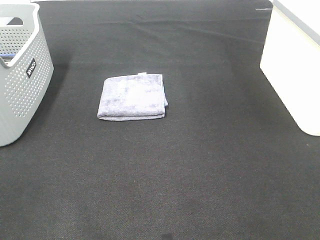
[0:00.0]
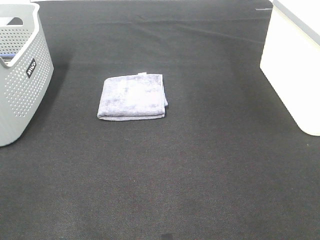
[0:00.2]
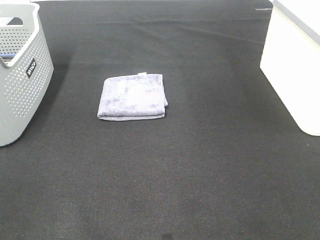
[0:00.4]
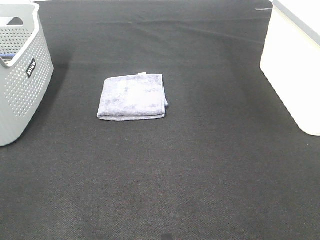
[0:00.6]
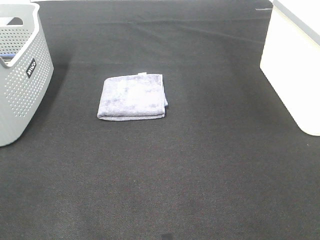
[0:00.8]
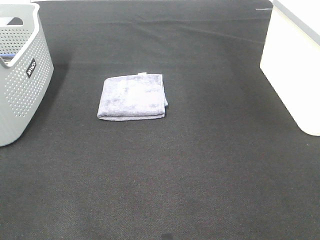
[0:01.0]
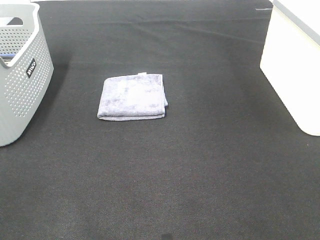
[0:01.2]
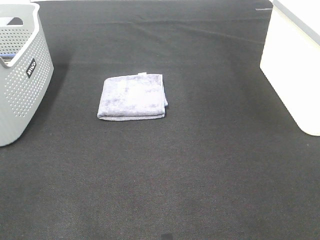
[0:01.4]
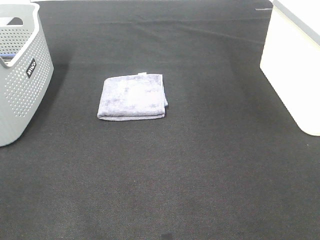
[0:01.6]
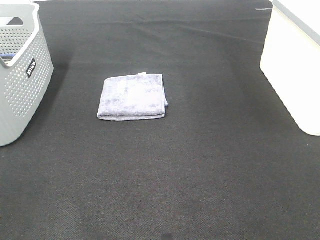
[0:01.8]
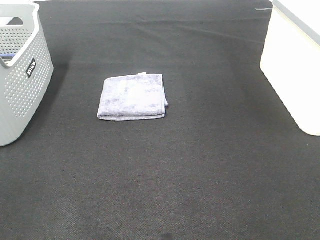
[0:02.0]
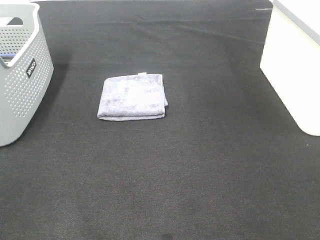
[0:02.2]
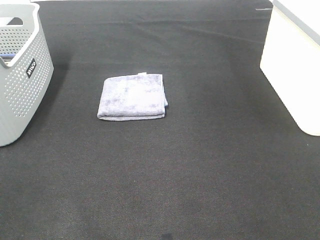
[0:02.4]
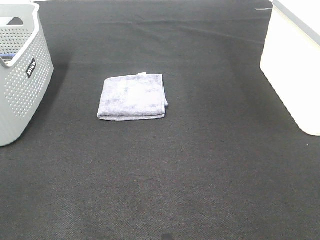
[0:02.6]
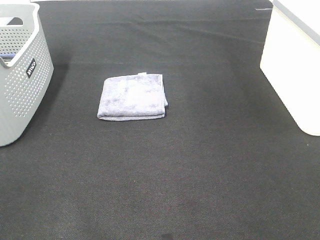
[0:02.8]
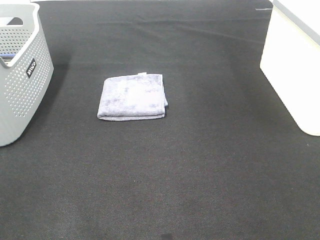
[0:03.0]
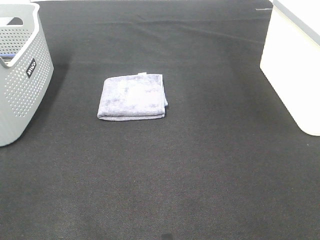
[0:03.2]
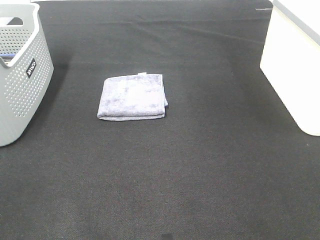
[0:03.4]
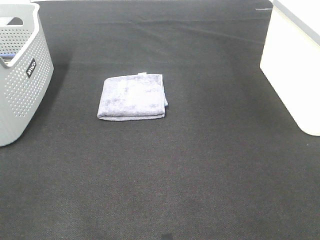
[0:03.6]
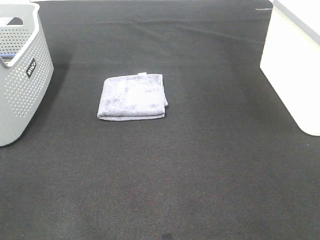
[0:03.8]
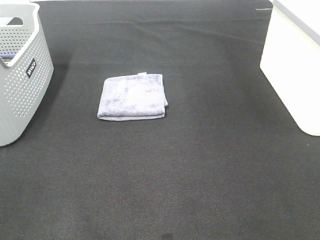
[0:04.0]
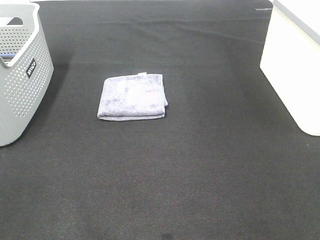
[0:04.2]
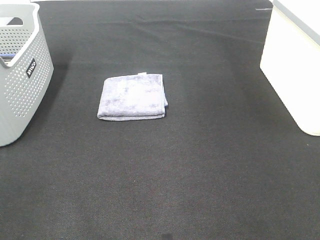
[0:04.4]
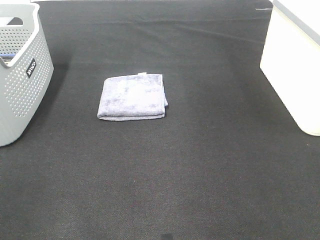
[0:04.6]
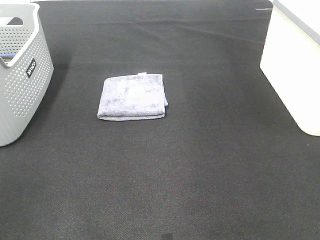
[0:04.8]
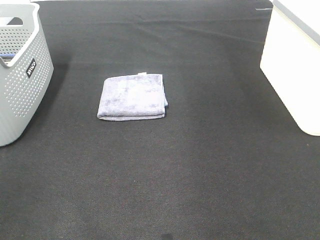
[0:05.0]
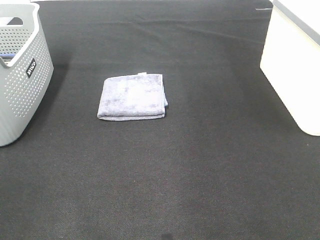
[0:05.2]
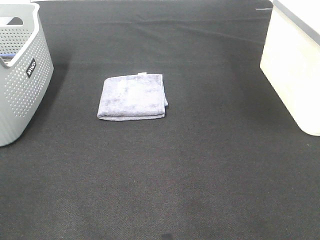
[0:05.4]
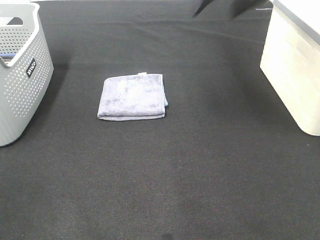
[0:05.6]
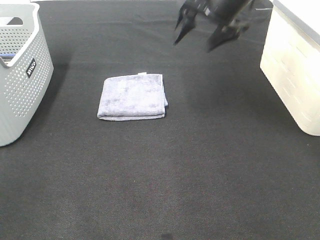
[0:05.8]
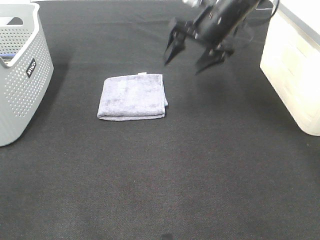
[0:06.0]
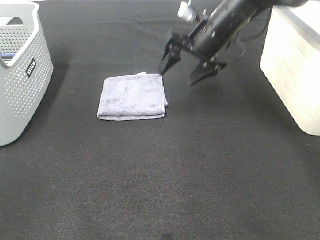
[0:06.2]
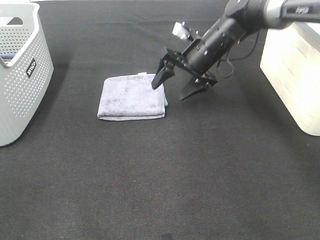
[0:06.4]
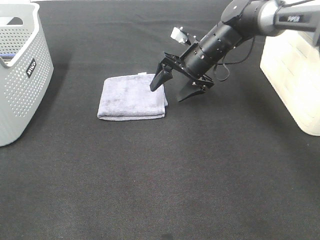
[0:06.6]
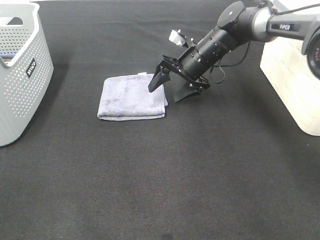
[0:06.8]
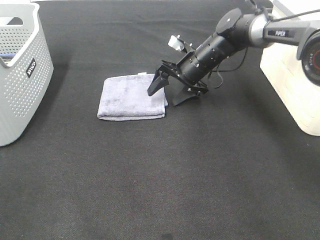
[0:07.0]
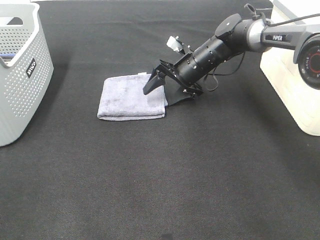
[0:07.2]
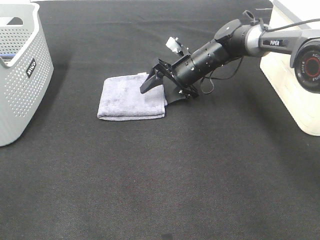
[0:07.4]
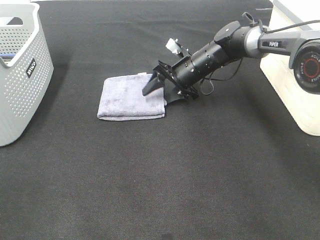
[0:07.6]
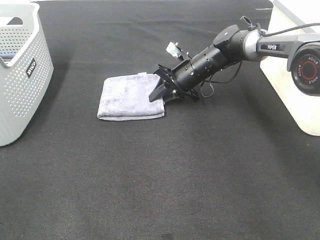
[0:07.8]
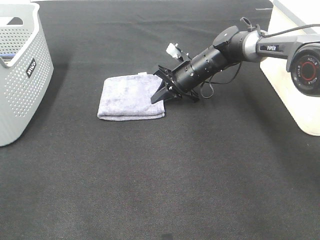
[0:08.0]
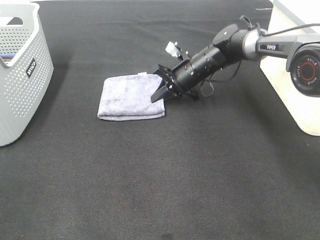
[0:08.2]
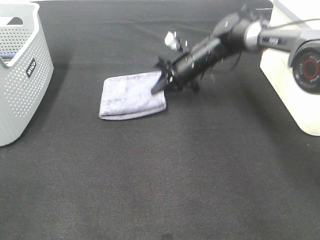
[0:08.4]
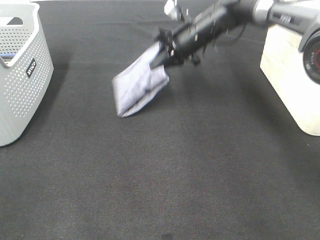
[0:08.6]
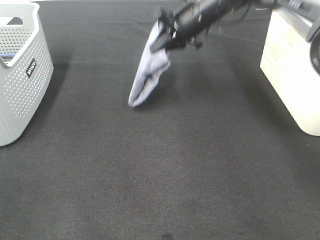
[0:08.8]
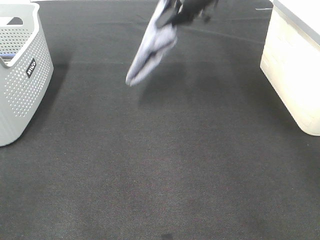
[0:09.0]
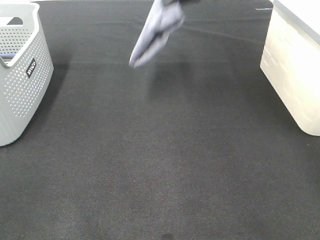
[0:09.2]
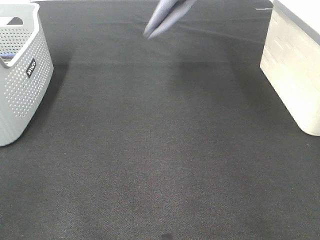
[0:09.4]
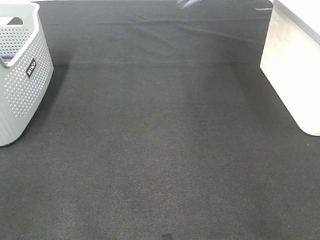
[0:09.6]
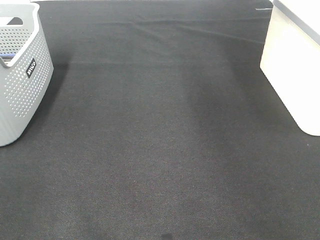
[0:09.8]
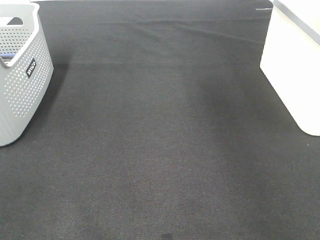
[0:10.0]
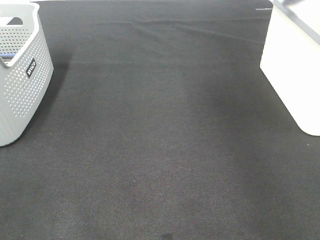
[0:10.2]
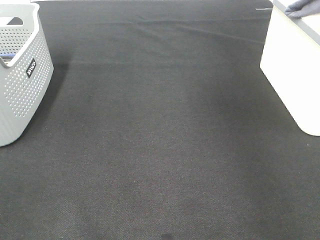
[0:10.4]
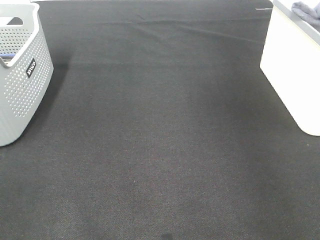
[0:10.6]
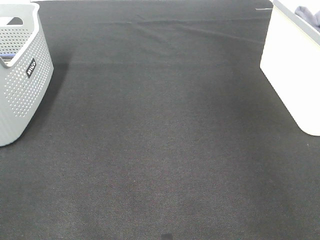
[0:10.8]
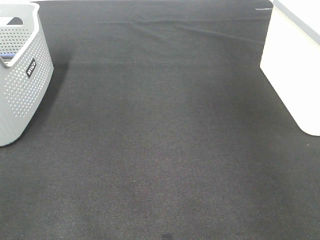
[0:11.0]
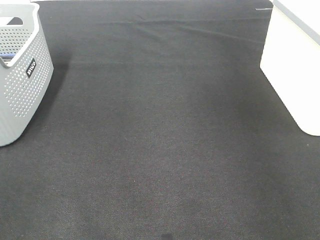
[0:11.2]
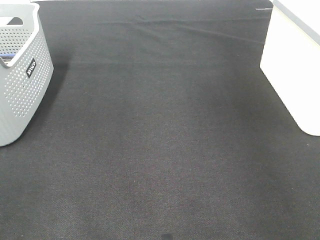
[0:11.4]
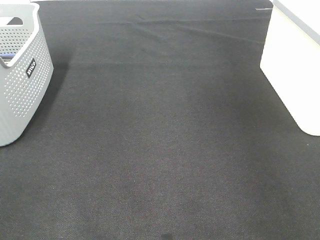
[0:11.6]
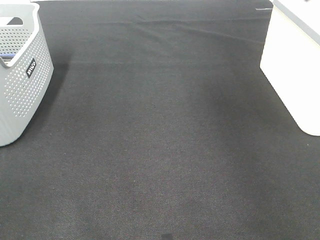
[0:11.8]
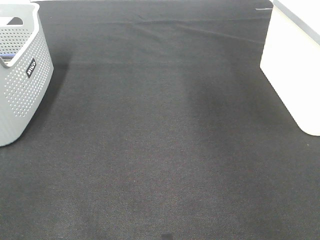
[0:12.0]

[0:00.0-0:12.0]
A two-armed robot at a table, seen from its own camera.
Step, 0:00.0 to 0:08.0: Right hand: grab the folded grey towel.
Step, 0:08.2 to 0:11.4: Right hand: place the grey towel in right basket.
0:00.0 to 0:03.0: Both grippers stay about where they are.
0:04.4 to 0:06.0: The right gripper shifts about 40 cm forward and to the left.
0:06.0 to 0:07.6: The right gripper goes roughly 15 cm downward.
0:07.6 to 0:09.0: The right gripper goes some 20 cm upward, and closes.
0:09.0 to 0:10.4: The right gripper shifts about 30 cm to the right.
0:10.4 to 0:12.0: The right gripper shifts some 10 cm to the left, and opens up.

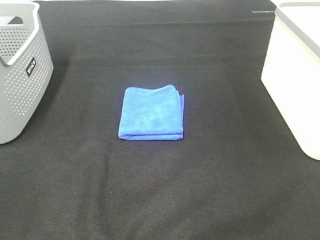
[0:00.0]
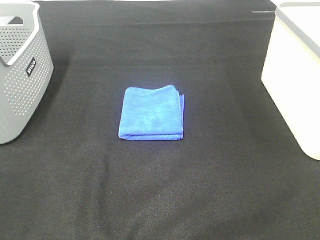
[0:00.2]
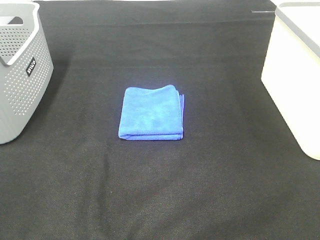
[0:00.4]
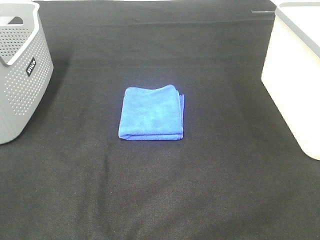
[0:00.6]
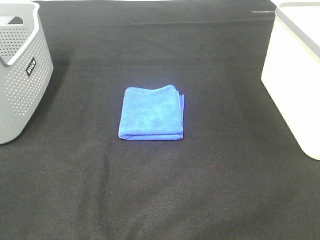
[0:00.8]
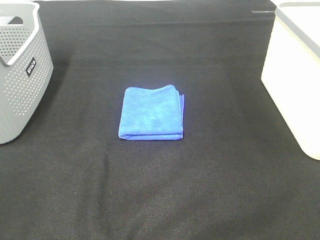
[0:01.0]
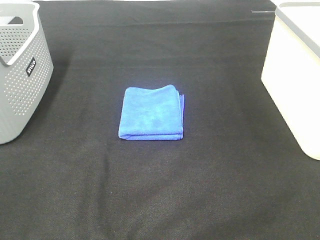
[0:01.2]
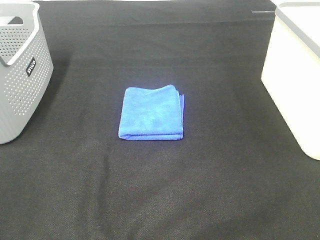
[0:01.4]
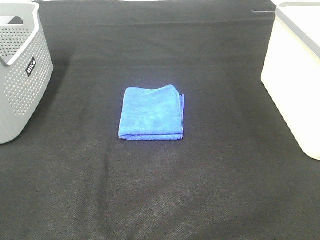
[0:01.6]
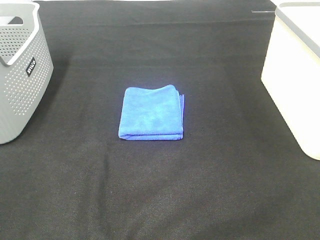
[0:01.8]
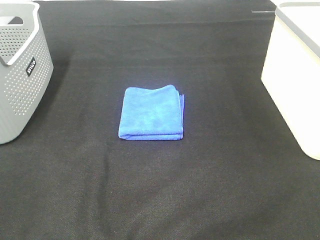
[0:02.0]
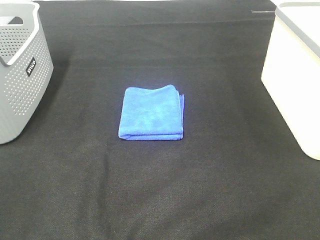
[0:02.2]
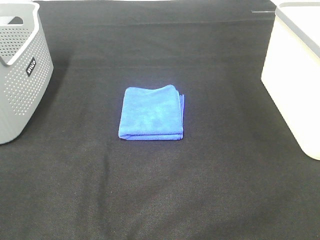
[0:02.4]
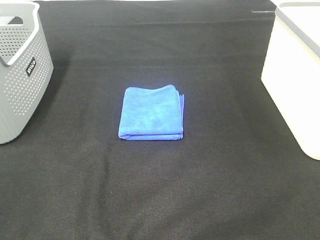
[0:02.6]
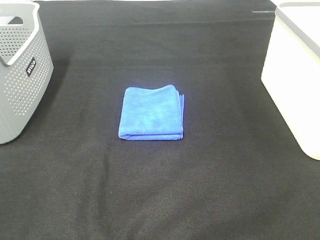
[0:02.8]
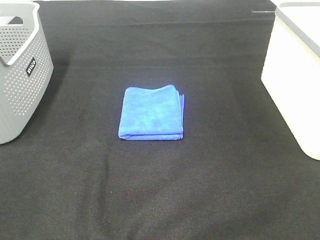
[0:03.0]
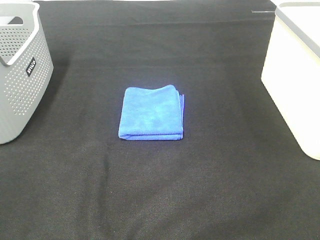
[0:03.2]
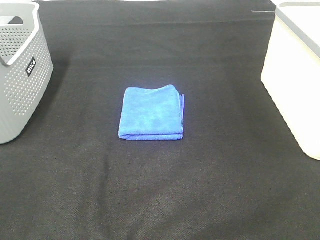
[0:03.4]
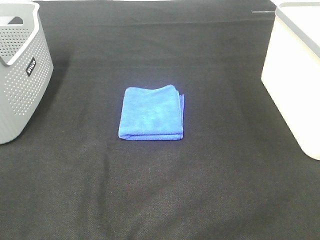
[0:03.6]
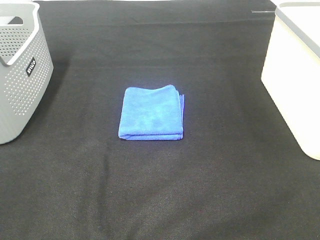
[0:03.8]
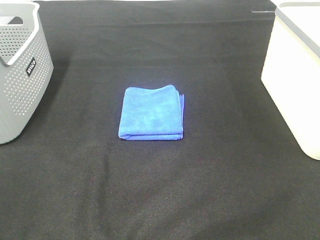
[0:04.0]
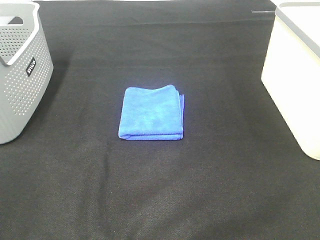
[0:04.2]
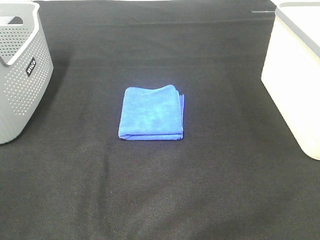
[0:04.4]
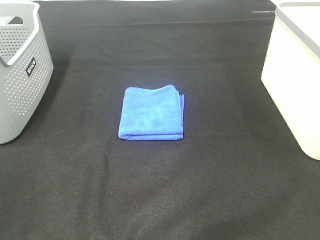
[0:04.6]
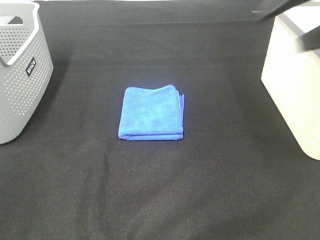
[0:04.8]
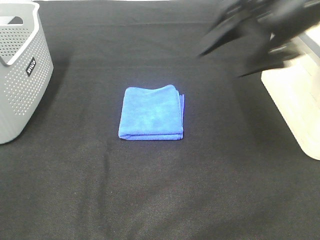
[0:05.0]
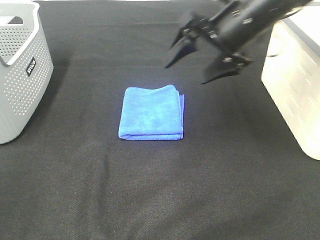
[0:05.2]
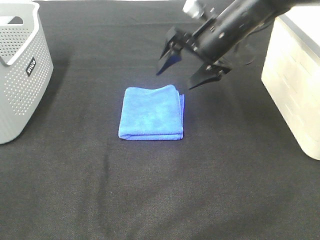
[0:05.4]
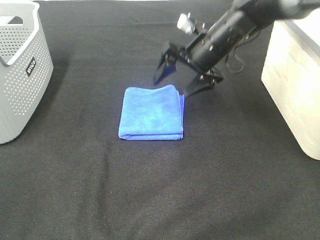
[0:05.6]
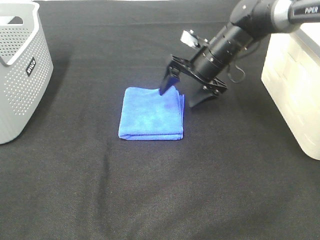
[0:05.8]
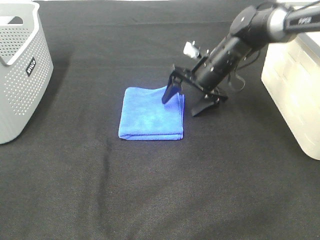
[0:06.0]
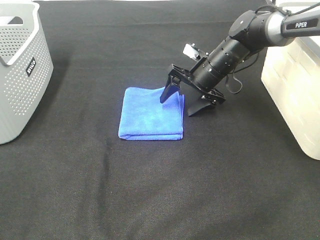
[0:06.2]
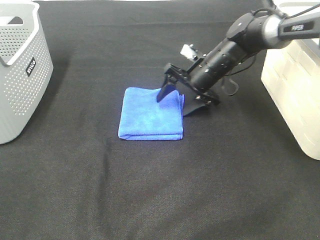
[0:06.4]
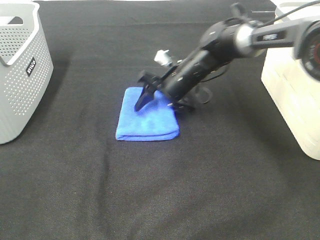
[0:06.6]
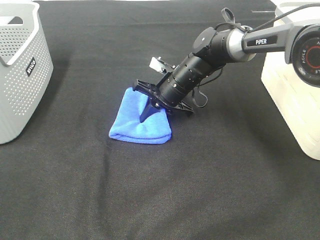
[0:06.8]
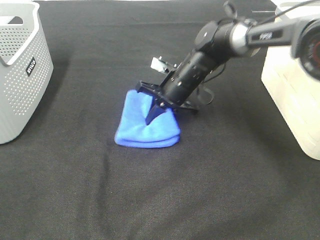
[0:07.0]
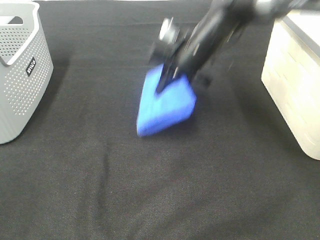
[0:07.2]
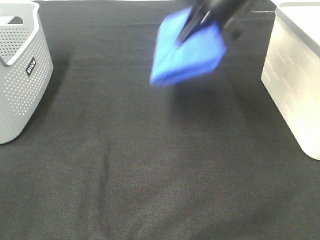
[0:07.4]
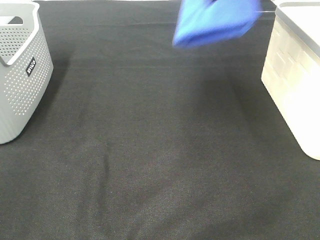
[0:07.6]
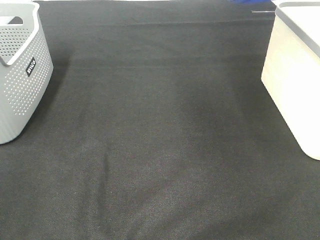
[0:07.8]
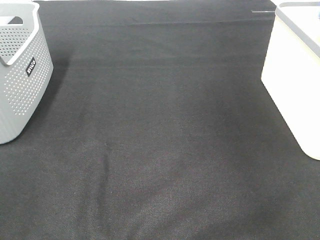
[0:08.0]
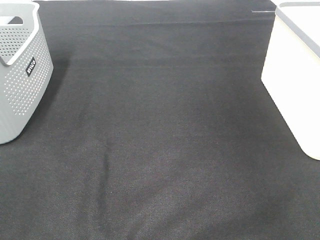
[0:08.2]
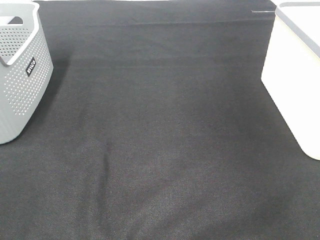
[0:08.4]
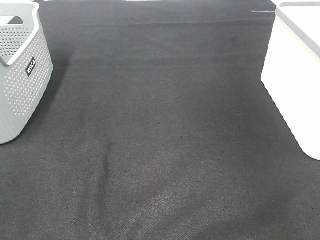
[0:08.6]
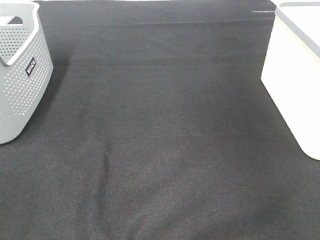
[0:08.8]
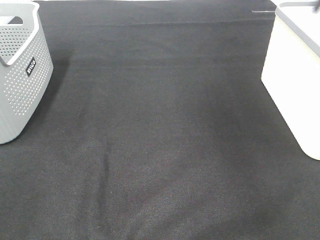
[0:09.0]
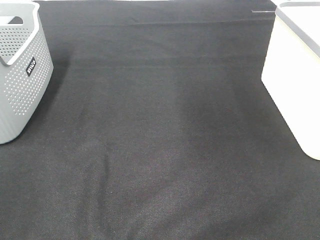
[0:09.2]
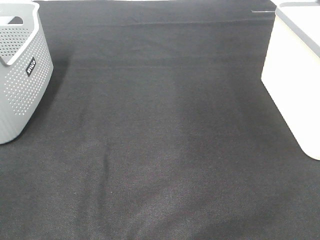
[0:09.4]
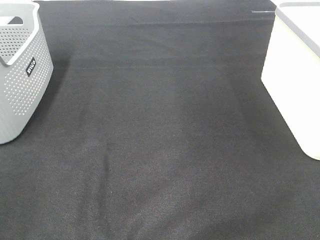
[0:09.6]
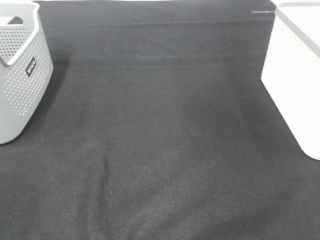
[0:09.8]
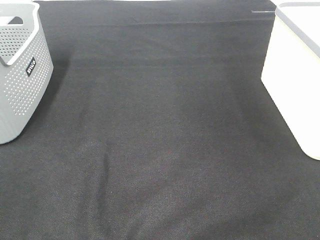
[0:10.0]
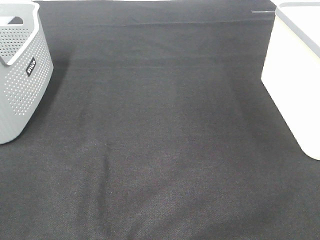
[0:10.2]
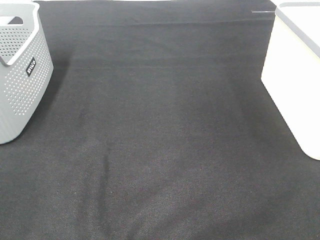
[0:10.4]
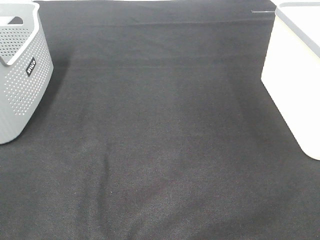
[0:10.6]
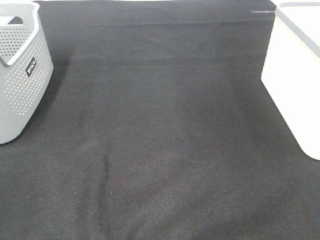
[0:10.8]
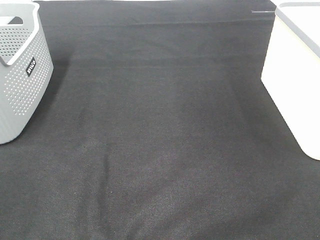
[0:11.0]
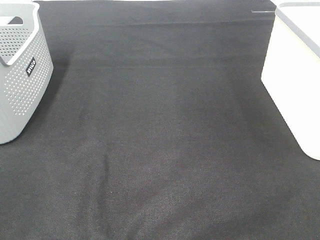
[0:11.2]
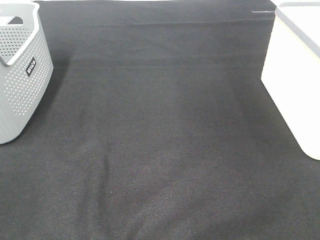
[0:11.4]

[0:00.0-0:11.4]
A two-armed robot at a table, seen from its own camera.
Step, 0:00.0 to 0:06.8: Right hand: grab the folded blue towel.
Step, 0:07.0 to 0:08.6: Right hand: place the blue towel in right basket.
0:00.0 to 0:02.8: Both grippers stay put.
0:04.2 to 0:05.6: The right gripper goes approximately 50 cm forward, downward and to the left.
0:05.6 to 0:07.2: The right gripper moves some 10 cm downward and comes back, and closes its fingers.
0:07.2 to 0:08.6: The right gripper goes some 35 cm to the right and upward, and opens up.
